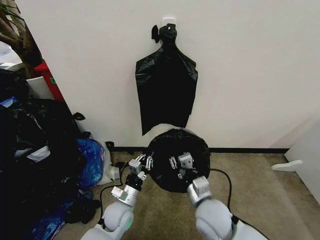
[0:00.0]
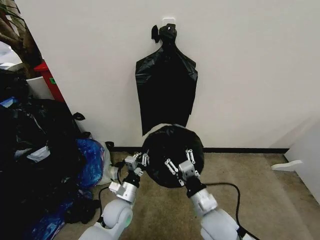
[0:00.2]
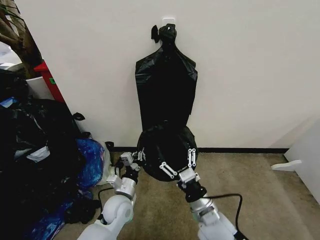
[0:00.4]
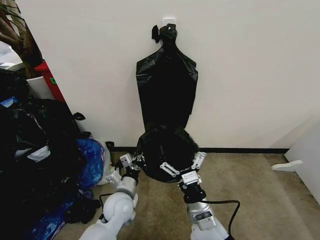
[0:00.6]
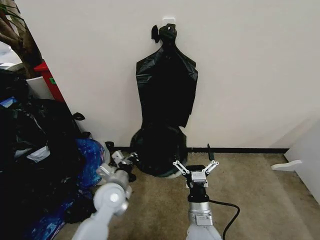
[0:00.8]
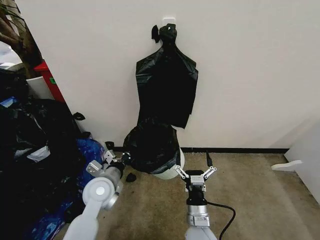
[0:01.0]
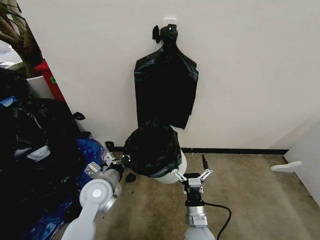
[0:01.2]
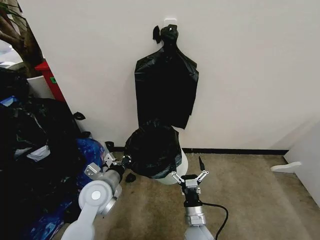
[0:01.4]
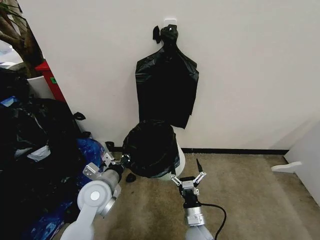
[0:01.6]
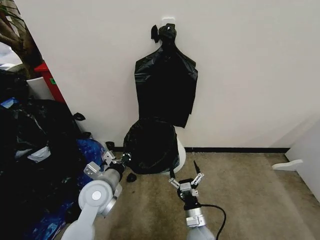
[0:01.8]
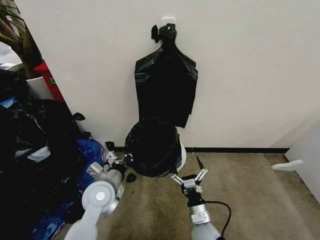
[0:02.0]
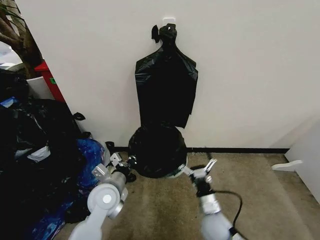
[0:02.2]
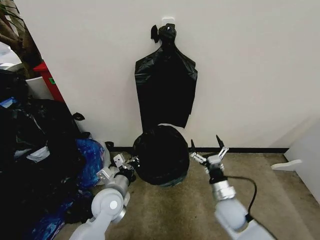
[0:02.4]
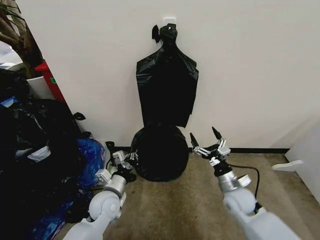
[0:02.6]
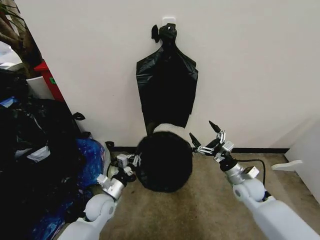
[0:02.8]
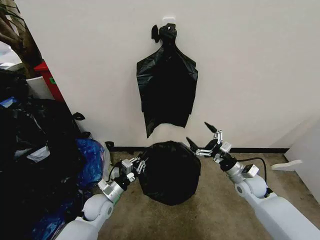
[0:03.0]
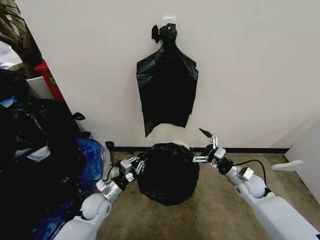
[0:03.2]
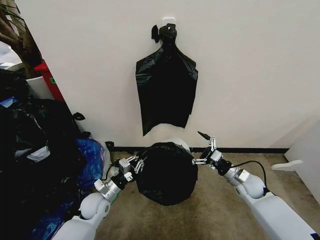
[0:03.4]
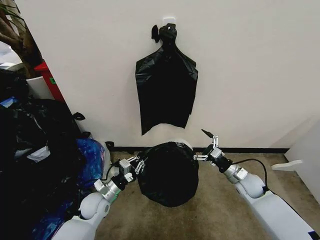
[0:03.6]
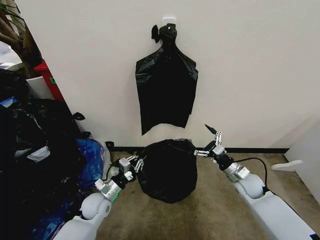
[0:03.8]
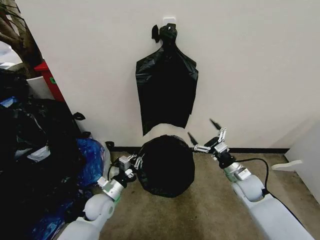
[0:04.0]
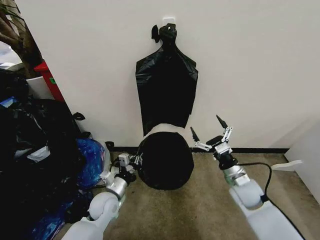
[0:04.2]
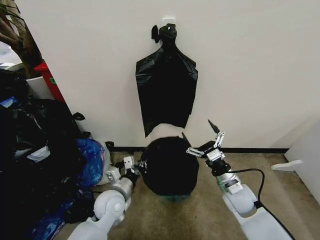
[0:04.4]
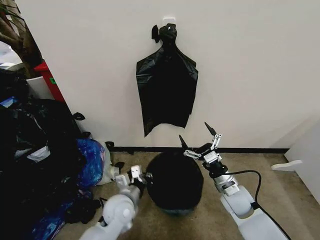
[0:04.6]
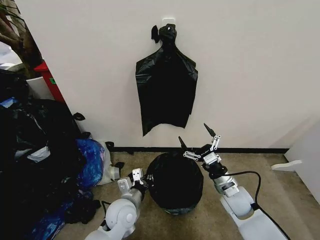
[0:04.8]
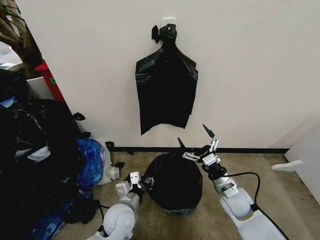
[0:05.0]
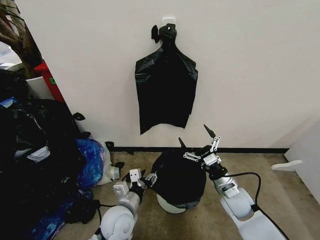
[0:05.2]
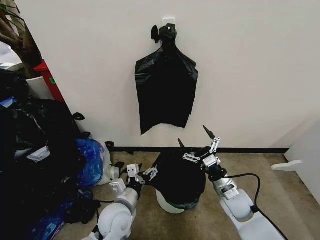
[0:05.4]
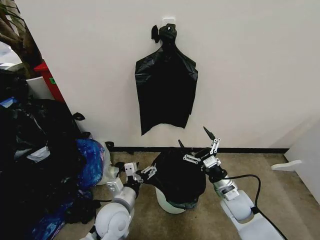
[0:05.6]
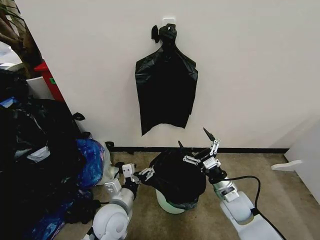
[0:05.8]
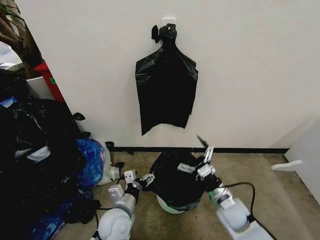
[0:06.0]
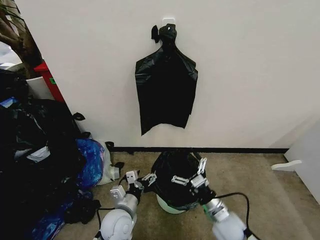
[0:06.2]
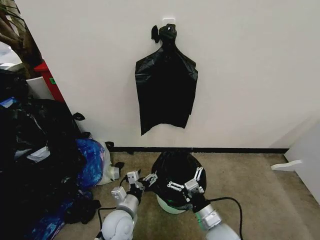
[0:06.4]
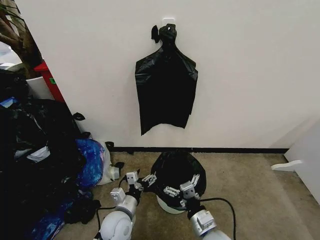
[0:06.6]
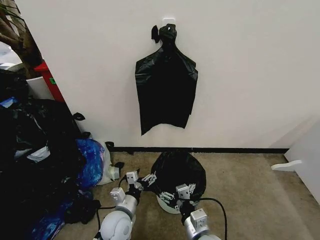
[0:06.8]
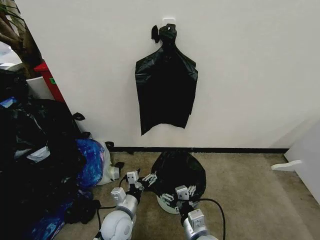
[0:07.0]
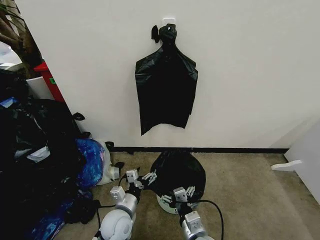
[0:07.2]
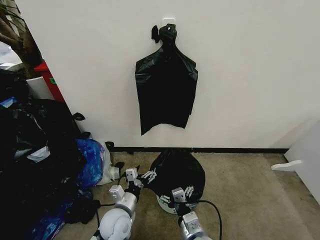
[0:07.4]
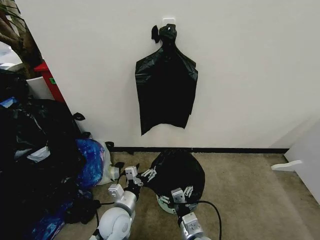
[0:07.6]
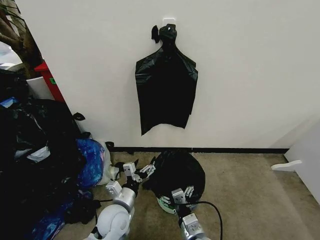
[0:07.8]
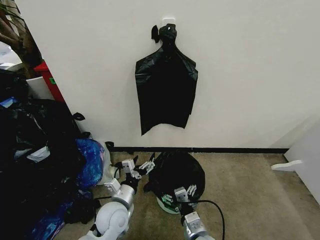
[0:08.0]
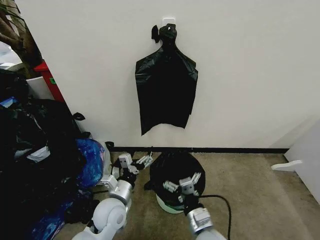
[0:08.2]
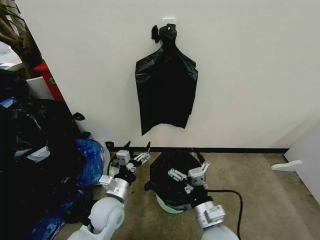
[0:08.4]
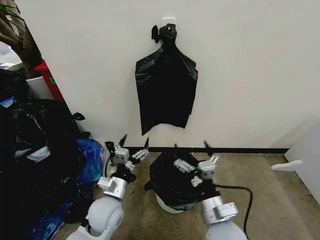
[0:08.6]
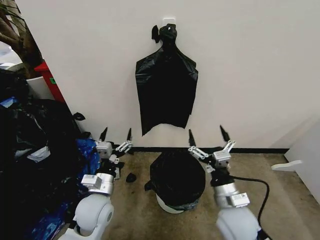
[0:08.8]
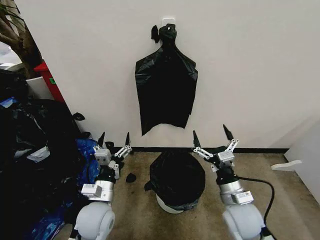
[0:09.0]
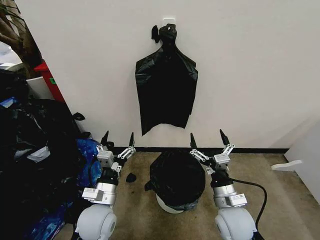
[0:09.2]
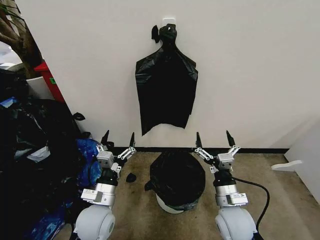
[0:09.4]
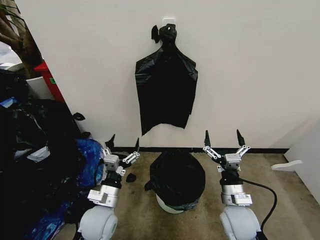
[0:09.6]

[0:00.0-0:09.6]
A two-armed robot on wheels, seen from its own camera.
Task of the whole recording: Place the garbage bag over the trash bin.
0:00.0 to 0:01.6: The left gripper goes roughly 15 cm upward. The right gripper heads downward, covering some 15 cm, and opens its fingers.
0:01.6 to 0:03.2: The right gripper moves to the right, forward and upward, approximately 30 cm, while the left gripper goes approximately 15 cm downward.
0:03.2 to 0:04.8: The right gripper heads to the left and backward, covering some 10 cm. Meanwhile the left gripper goes about 15 cm to the right and upward.
0:04.8 to 0:06.4: The left gripper opens its fingers. The right gripper is displaced backward and to the left by about 15 cm.
0:06.4 to 0:08.0: The right gripper heads to the left, covering roughly 5 cm.
0:08.0 to 0:09.6: The right gripper goes some 15 cm to the right, forward and upward.
